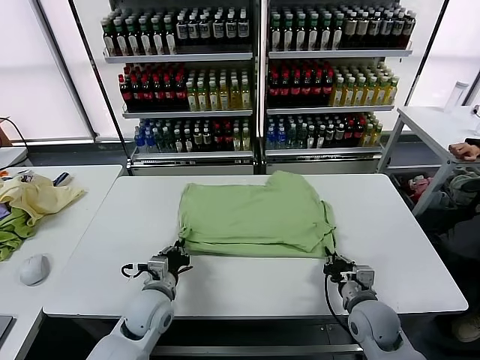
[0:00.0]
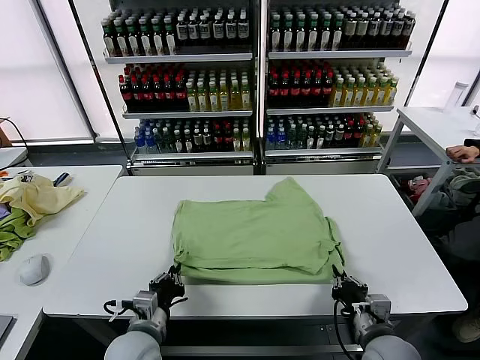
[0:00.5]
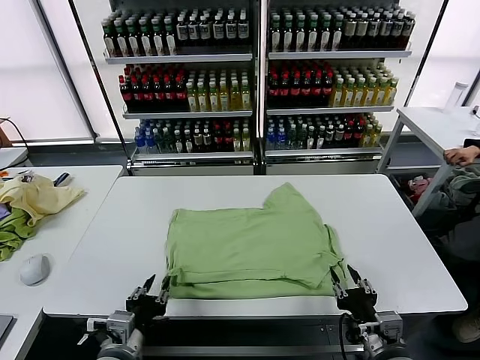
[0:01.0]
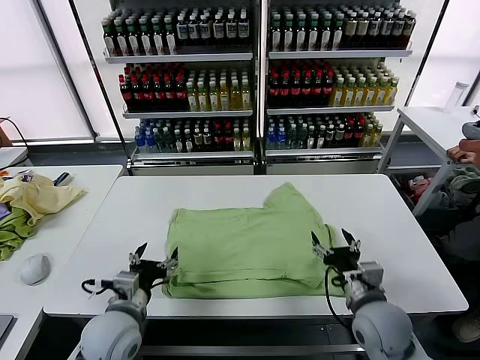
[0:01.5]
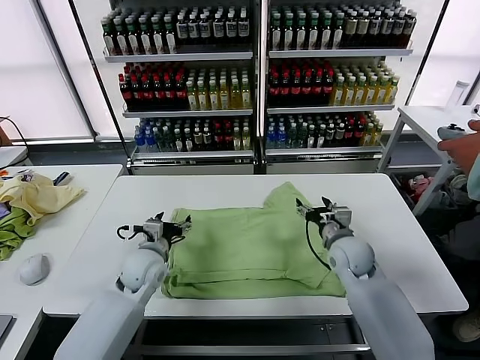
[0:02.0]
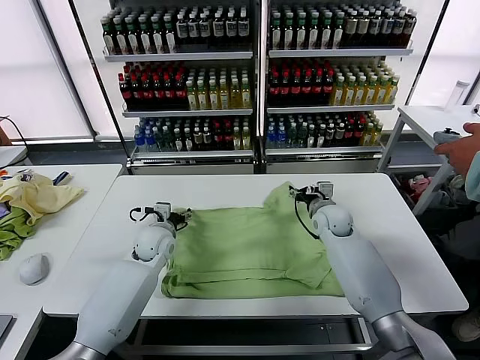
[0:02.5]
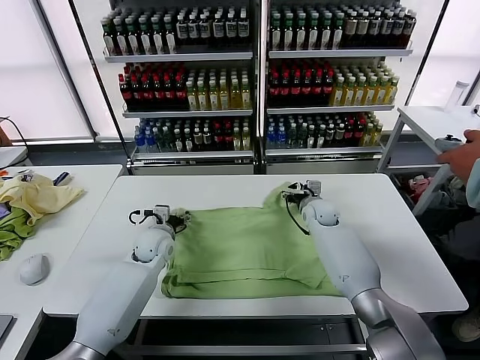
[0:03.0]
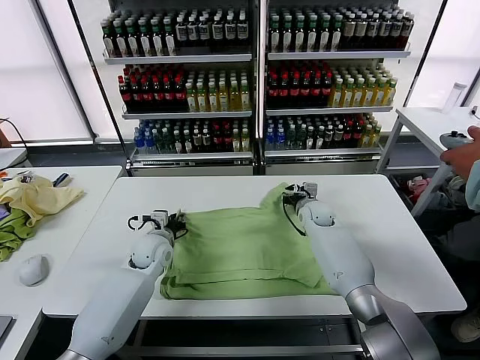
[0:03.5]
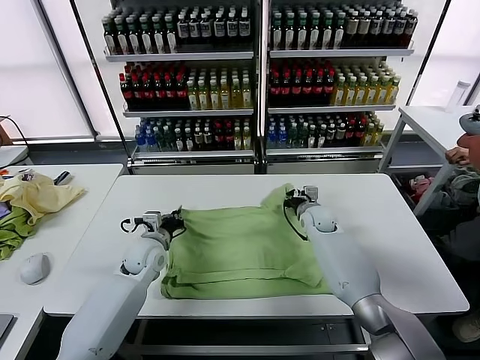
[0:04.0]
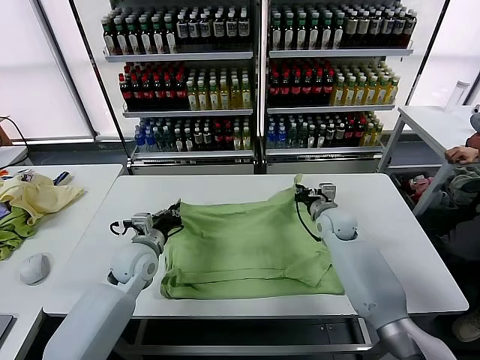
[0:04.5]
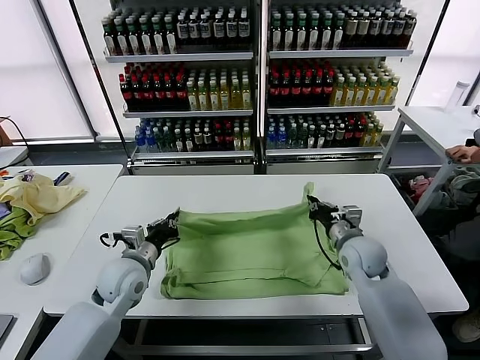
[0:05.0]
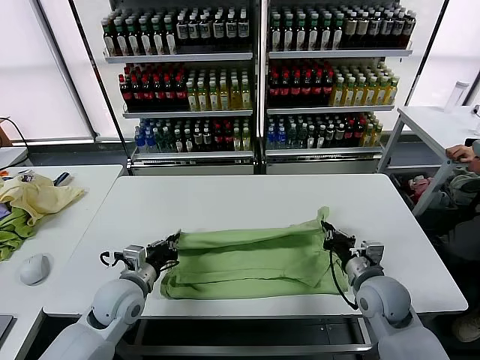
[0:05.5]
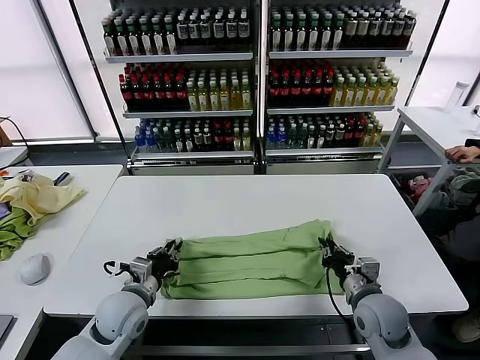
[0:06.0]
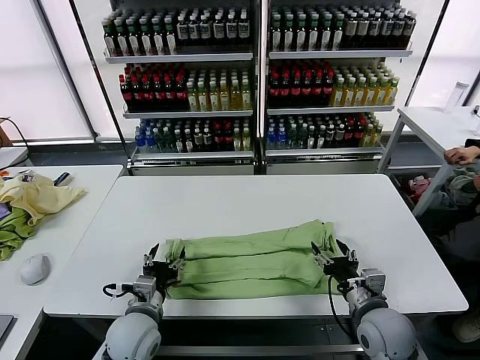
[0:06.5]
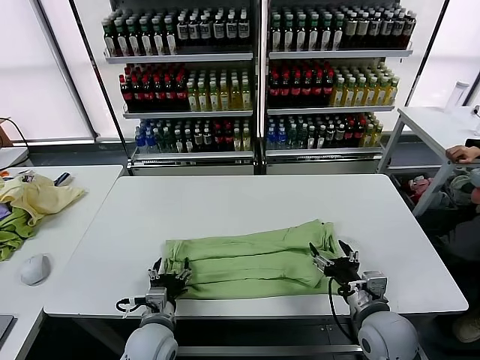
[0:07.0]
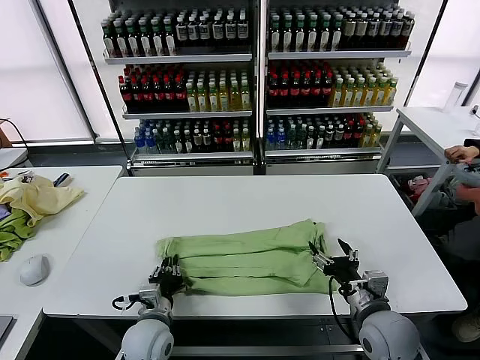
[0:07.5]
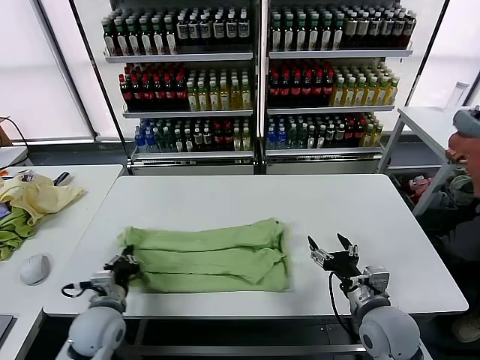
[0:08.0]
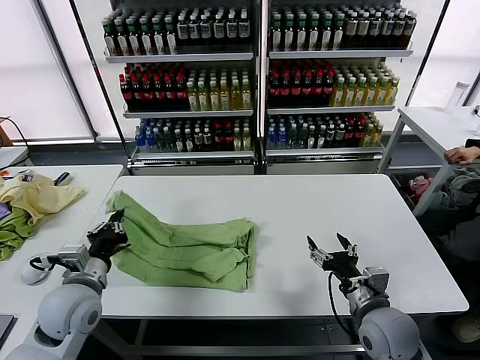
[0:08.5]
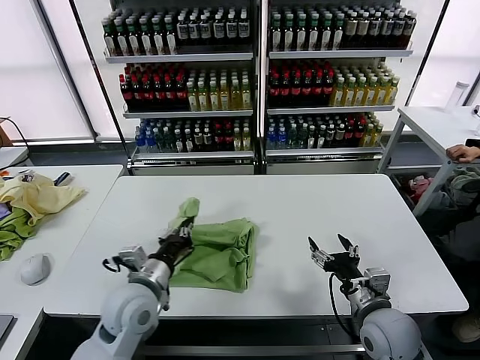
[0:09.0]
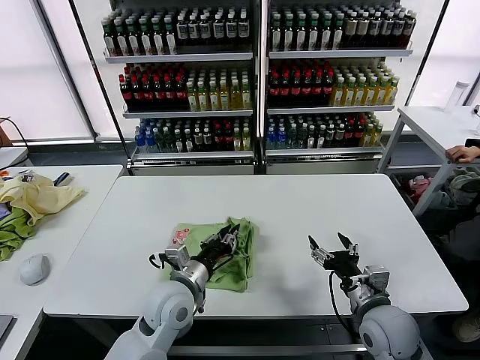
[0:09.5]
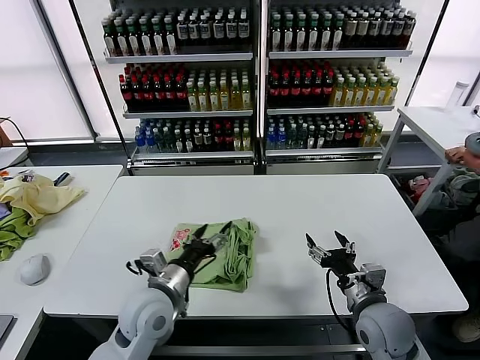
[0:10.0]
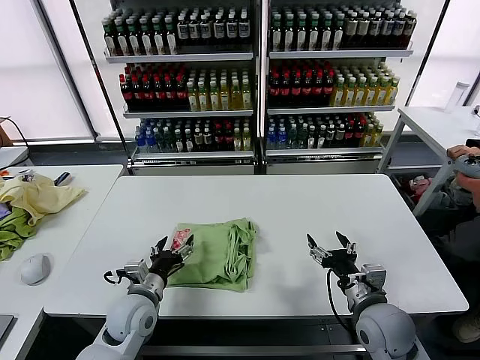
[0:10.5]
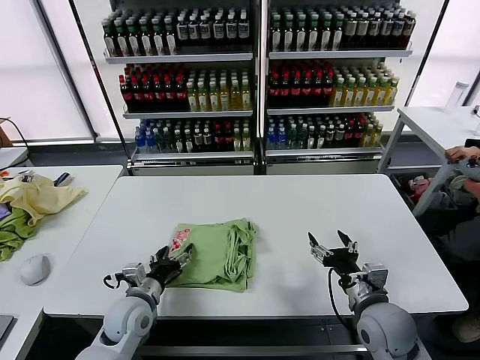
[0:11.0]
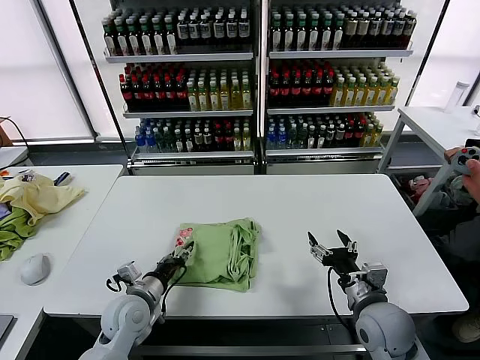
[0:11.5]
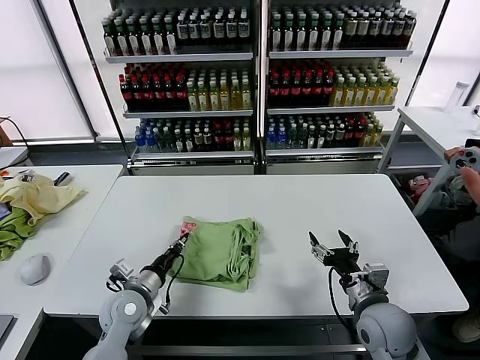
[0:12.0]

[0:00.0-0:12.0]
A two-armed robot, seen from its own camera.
Task of the whole recording: fold and organize the clothes.
Step, 0:01.5 to 0:03.5: use both grippers simultaneously to clamp the upper edge of the clothing fabric.
Step, 0:04.0 to 0:06.0: use both grippers to drag the upper edge of the fabric backward and fold it over the lower edge.
Step, 0:06.5 to 0:07.5: use the left gripper to clamp the left edge of the fabric.
Step, 0:08.0 to 0:09.5: use the left gripper to drag the left edge of the fabric to the left and folds it over the right edge.
0:00.0 to 0:02.0: The left gripper goes backward and returns, some 15 cm each way, and opens, while the right gripper is displaced forward by roughly 20 cm, and opens its fingers.
0:02.0 to 0:04.0: The left gripper heads forward, covering about 5 cm, and closes its fingers, while the right gripper goes some 10 cm forward, and closes its fingers.
0:04.0 to 0:06.0: The right gripper moves backward, some 25 cm, and opens its fingers. The left gripper shifts approximately 15 cm backward.
0:06.0 to 0:08.0: The left gripper opens, then closes once more. The right gripper opens its fingers.
0:08.0 to 0:10.0: The left gripper is displaced to the right and upward by roughly 15 cm, and opens up.
0:10.0 to 0:12.0: The left gripper moves to the left and downward, some 10 cm, and closes its fingers.

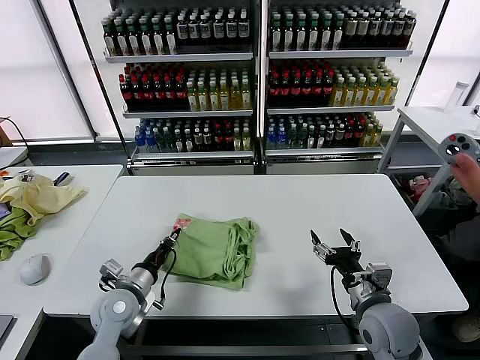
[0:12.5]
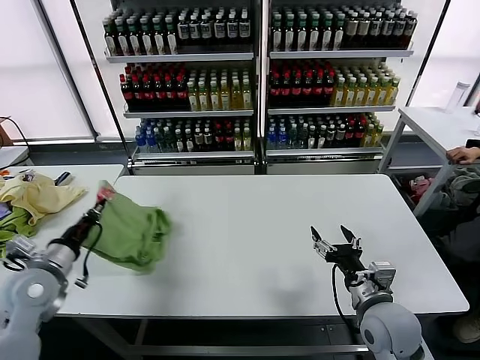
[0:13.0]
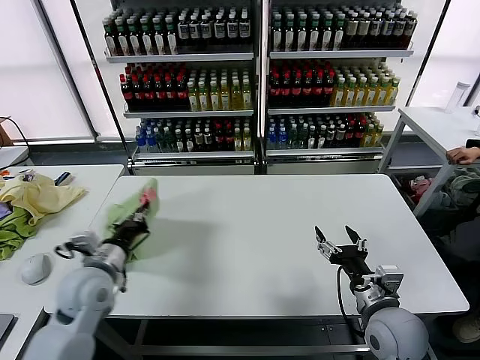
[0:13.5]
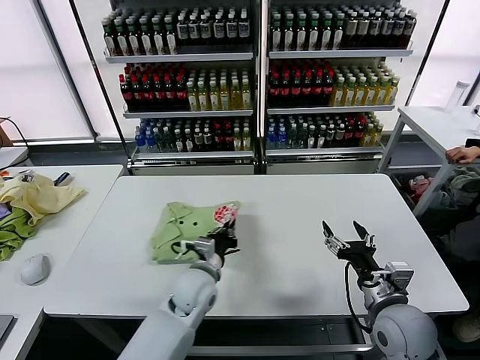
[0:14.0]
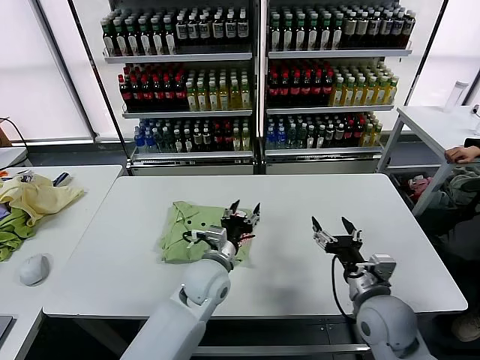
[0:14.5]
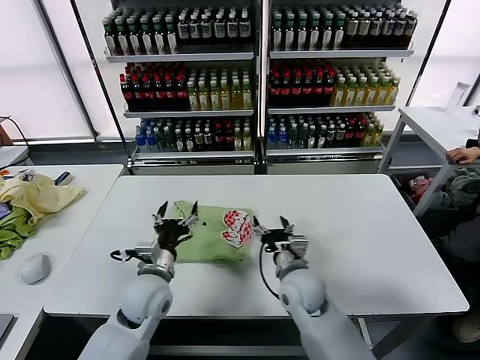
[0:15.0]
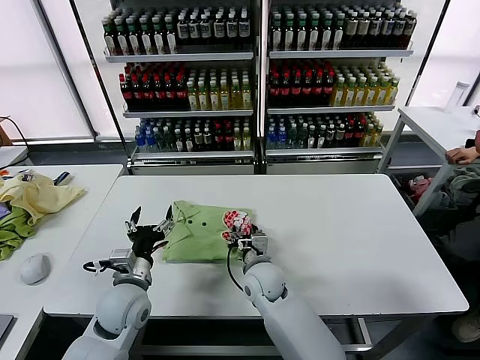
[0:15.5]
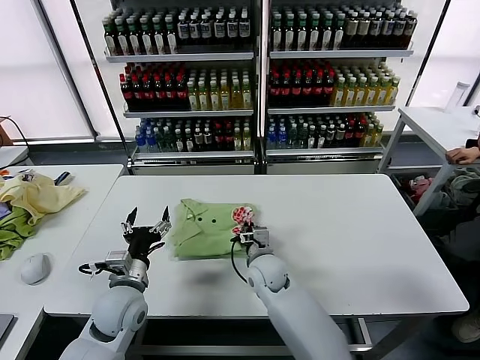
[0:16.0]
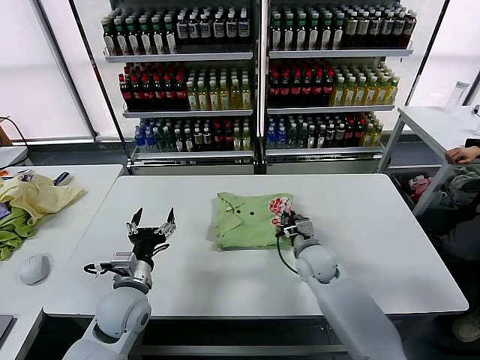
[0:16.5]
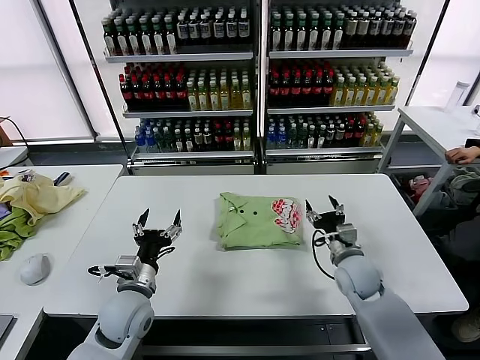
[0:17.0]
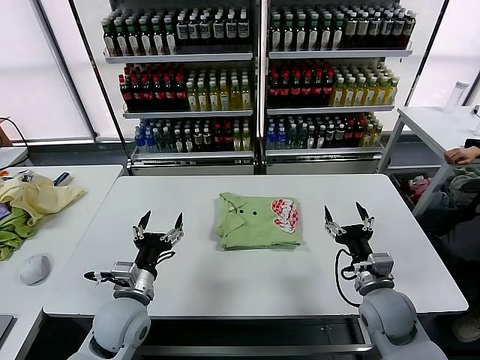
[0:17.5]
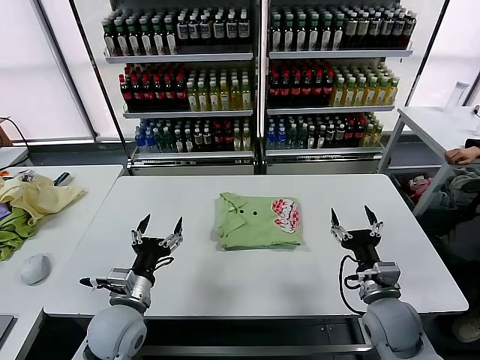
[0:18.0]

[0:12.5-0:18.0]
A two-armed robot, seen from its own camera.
Task of the whole recording: fold and organize the clothes.
Step, 0:14.5 to 0:16.5: Drag the clothes to the center of the table.
0:12.5 to 0:14.5: The left gripper shifts roughly 20 cm to the right, and opens.
0:14.5 to 0:16.0: The left gripper travels to the left by approximately 20 cm. Meanwhile the right gripper travels to the left and forward by about 25 cm, and closes up.
0:16.0 to 0:18.0: The right gripper shifts roughly 25 cm to the right and backward, and opens its fingers.
